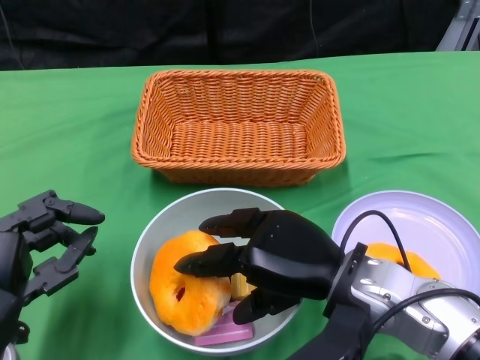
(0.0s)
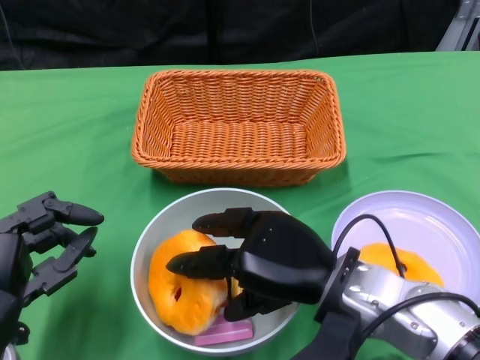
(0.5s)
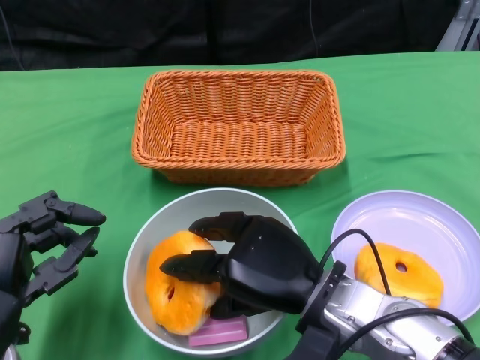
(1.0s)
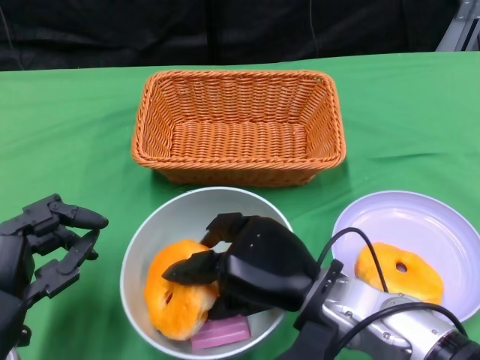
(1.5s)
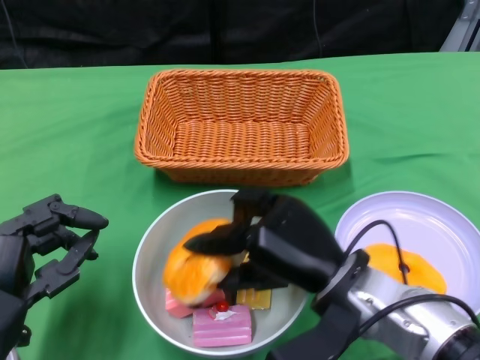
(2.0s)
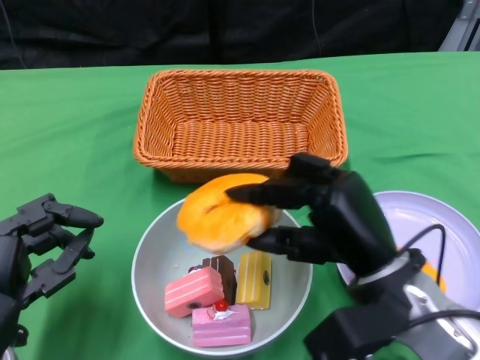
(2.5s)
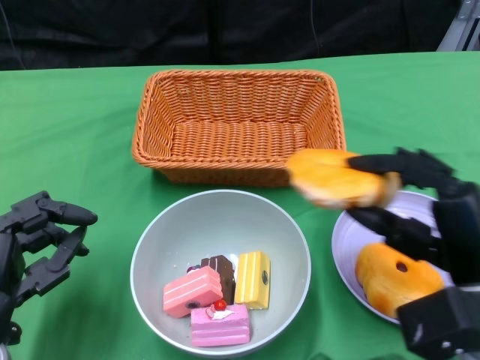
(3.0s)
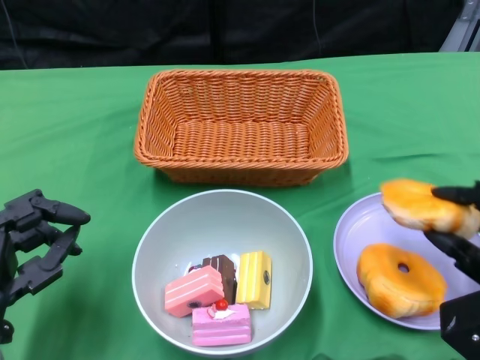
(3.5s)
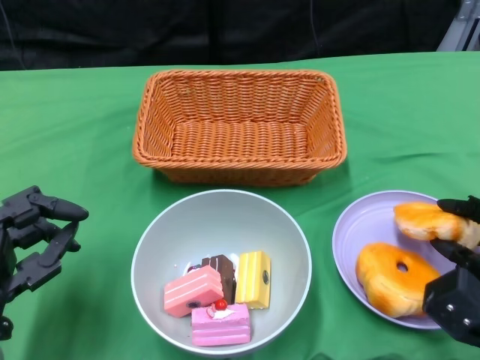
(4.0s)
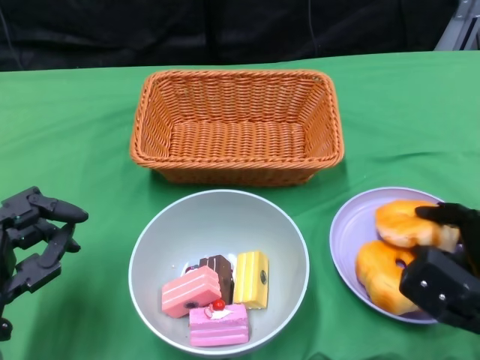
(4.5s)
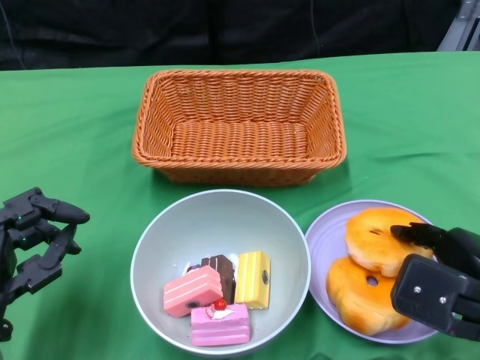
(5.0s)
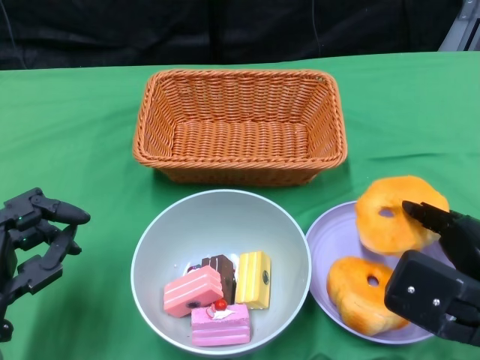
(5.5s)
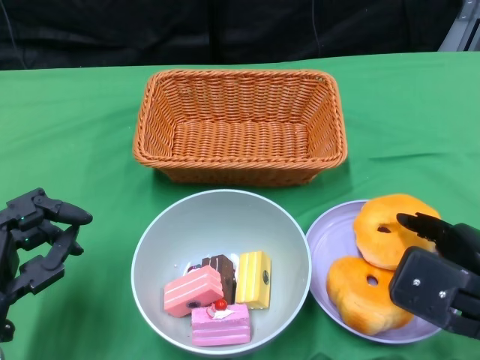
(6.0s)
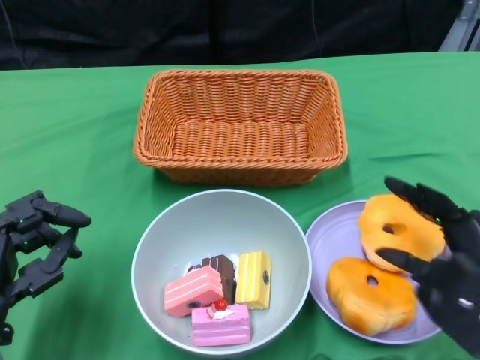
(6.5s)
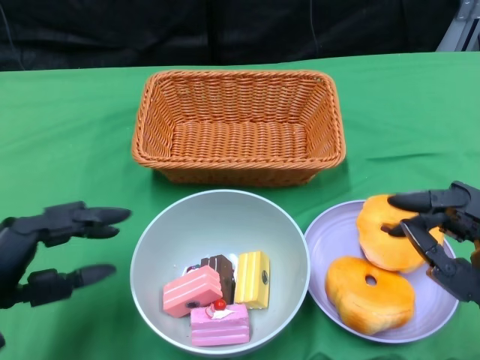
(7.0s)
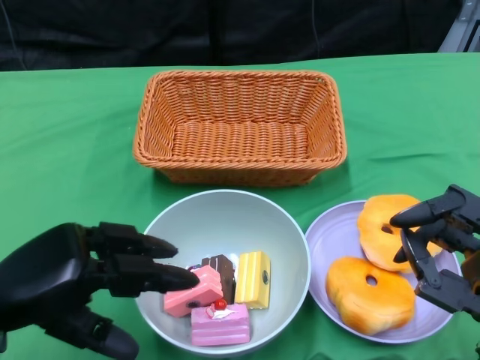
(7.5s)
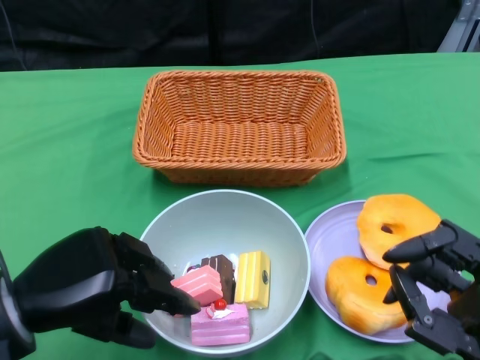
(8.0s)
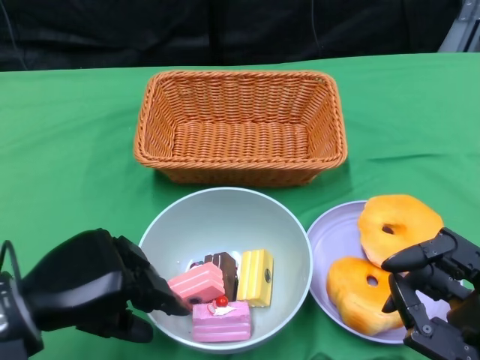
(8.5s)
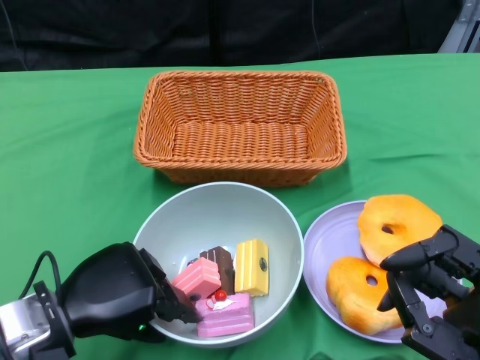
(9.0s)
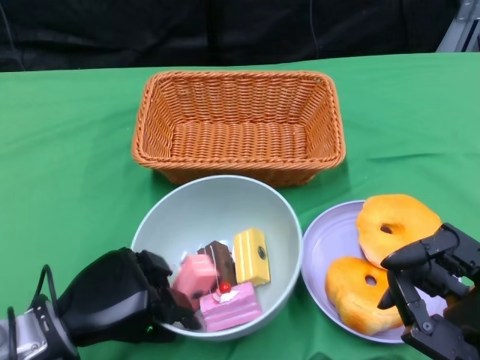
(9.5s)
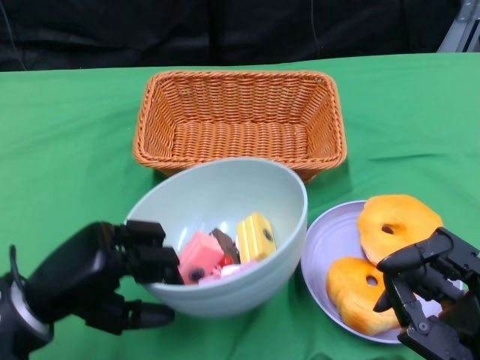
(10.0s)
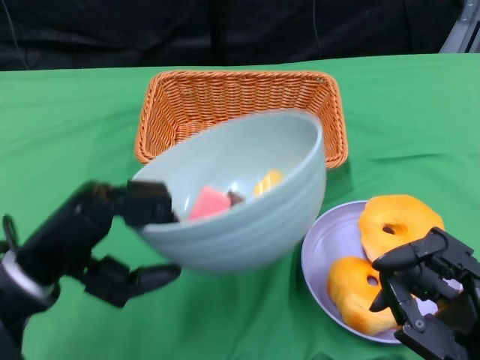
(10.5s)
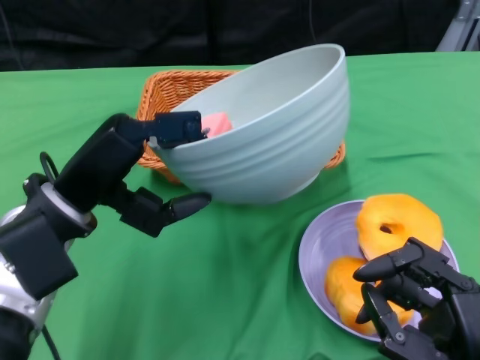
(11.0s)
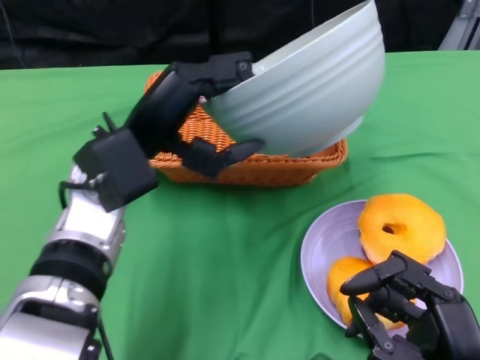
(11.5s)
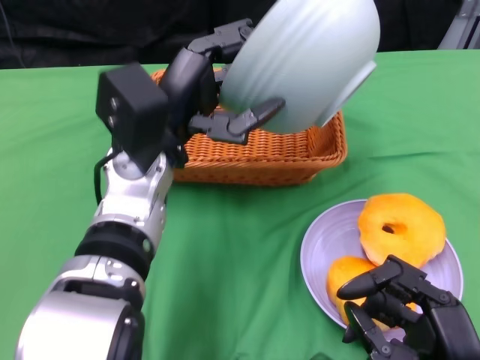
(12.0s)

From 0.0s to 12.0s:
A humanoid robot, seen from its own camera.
Step, from 0.0s to 6.0s: Pick up the bread with the right gripper and place it on the plate.
Step, from 6.5s to 9.5s: Grasp the bowl with the left gripper.
From 2.0s to 4.0s: The right hand heads to the right, covering some 15 cm.
From 4.0s to 6.0s: The right hand heads upward, covering approximately 10 cm.
From 6.0s to 8.0s: The left hand shifts approximately 5 cm upward, while the right hand goes about 5 cm backward.
From 10.0s to 12.0s: The left hand heads to the right, forward and upward, covering roughly 20 cm.

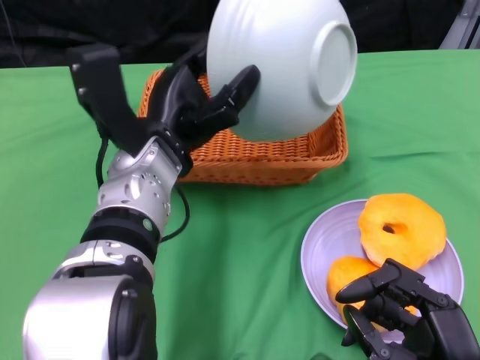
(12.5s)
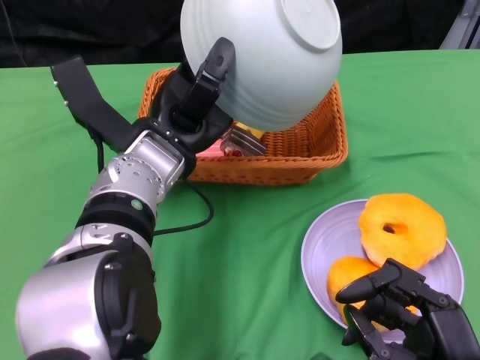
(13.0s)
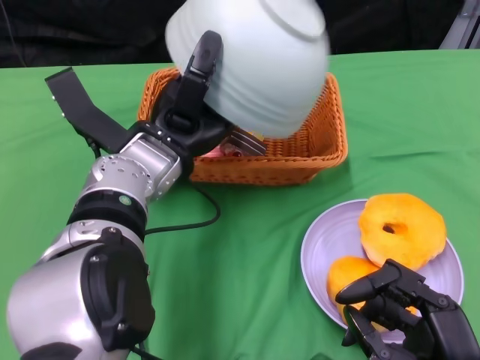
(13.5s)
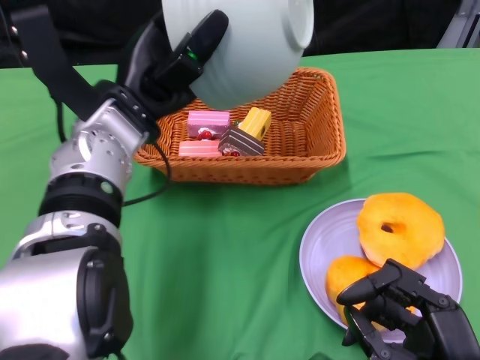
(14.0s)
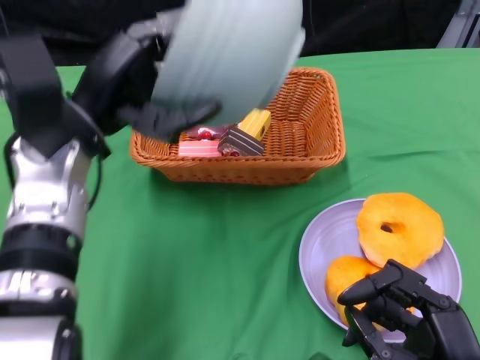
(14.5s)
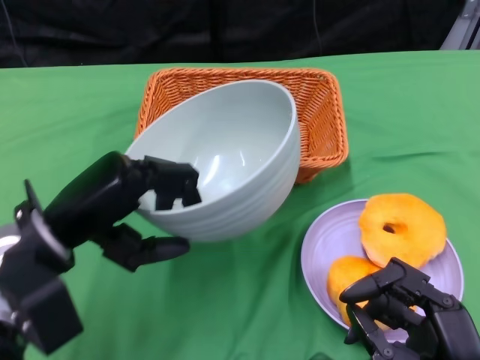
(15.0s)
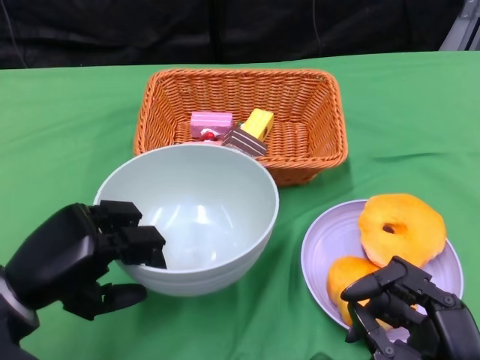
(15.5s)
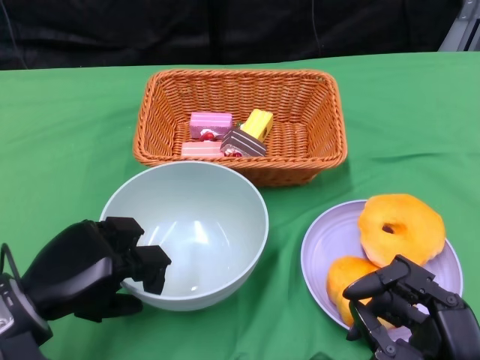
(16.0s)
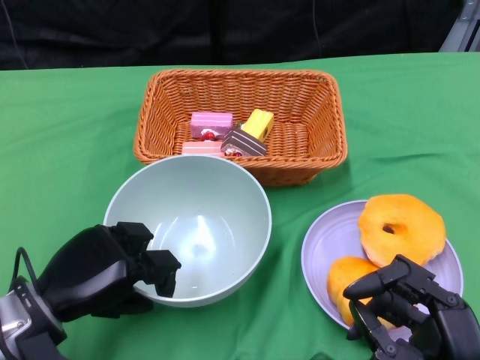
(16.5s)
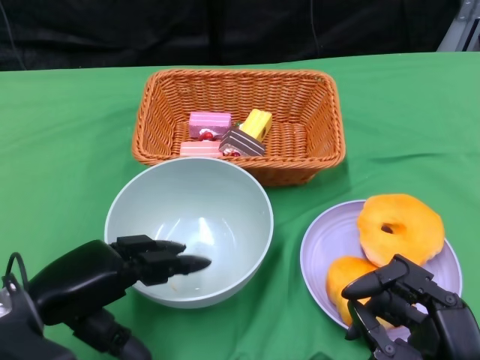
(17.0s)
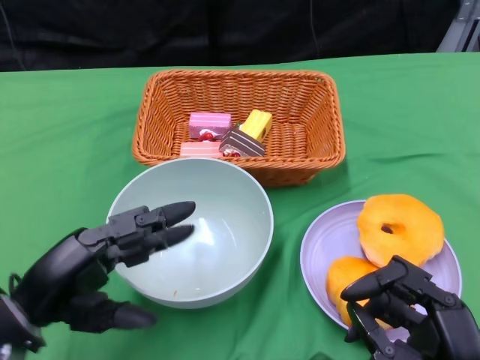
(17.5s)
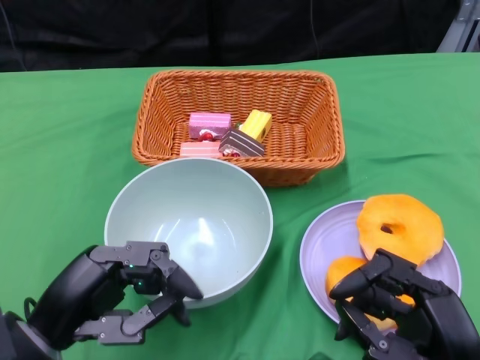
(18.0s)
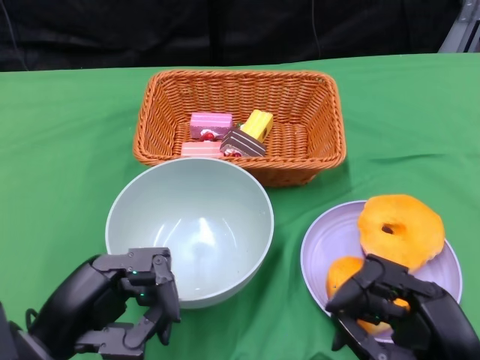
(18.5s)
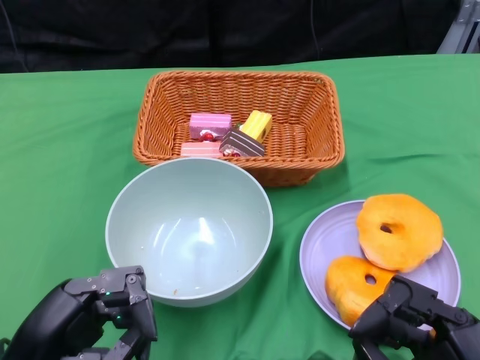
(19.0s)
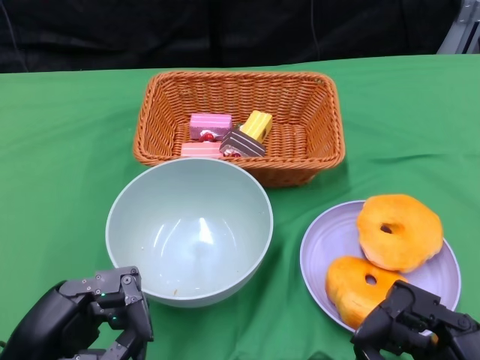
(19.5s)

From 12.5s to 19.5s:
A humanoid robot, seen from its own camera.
Step, from 14.5s to 16.5s: Place the bowl on the table with the left gripper.
From 12.5s to 14.5s: The left hand is displaced to the left by approximately 10 cm.
From 14.5s to 16.0s: The left hand moves downward, backward and to the left, roughly 15 cm.
From 17.5s to 19.5s: The left hand shifts approximately 5 cm backward.

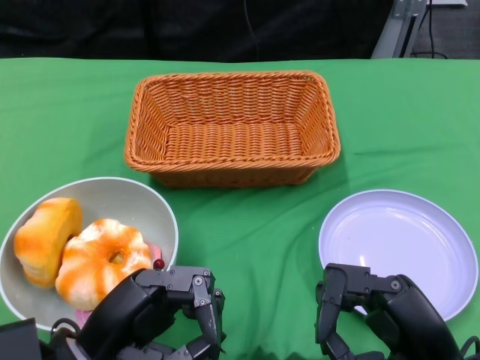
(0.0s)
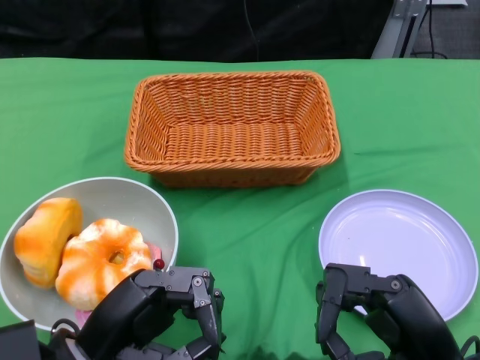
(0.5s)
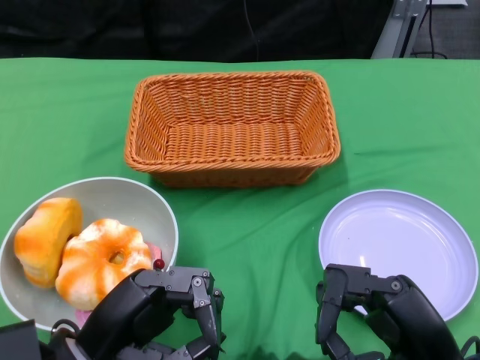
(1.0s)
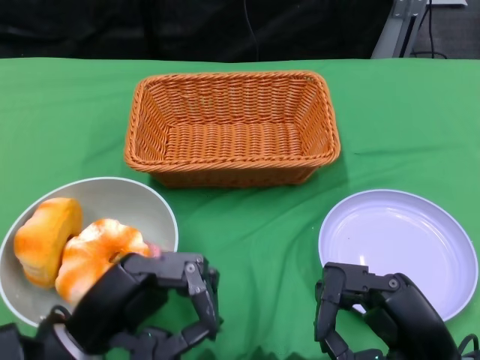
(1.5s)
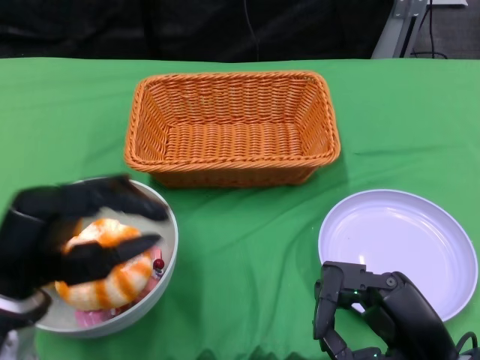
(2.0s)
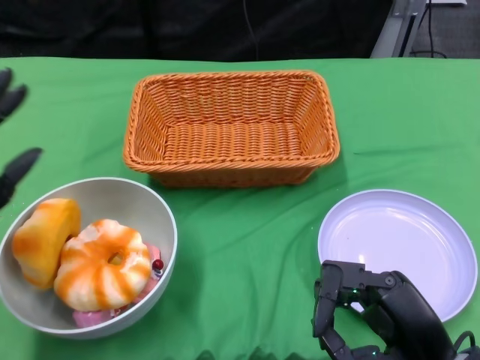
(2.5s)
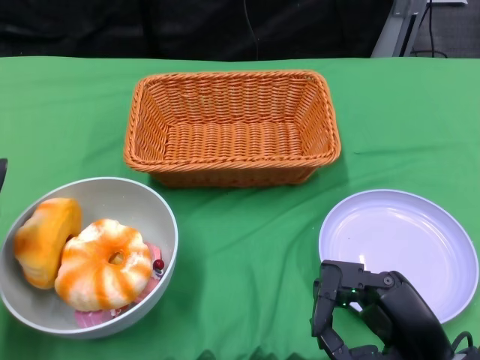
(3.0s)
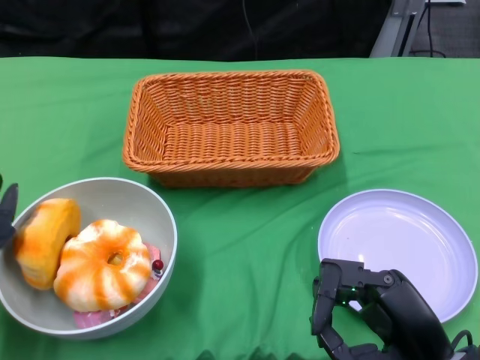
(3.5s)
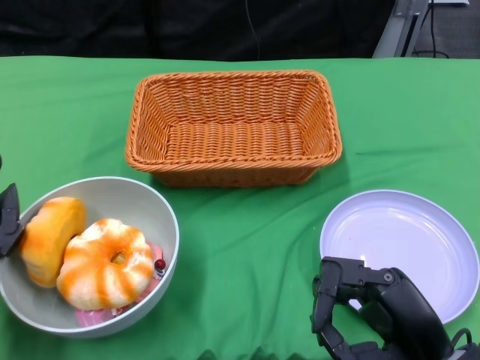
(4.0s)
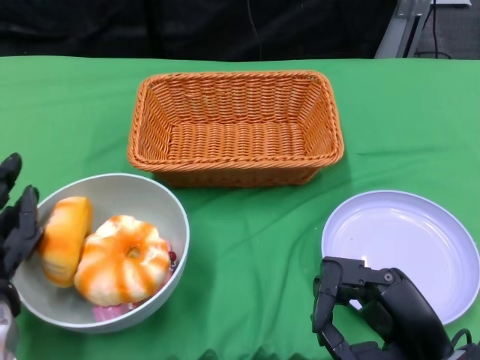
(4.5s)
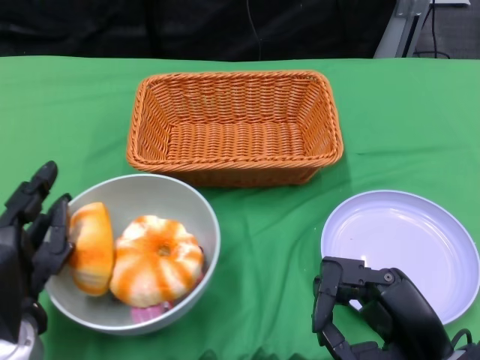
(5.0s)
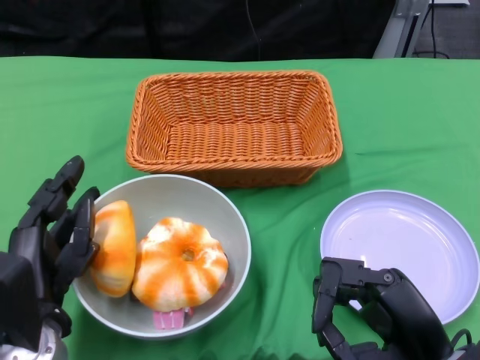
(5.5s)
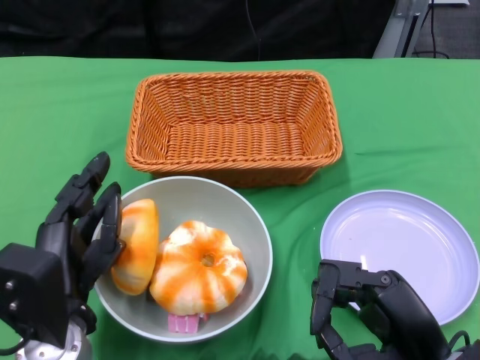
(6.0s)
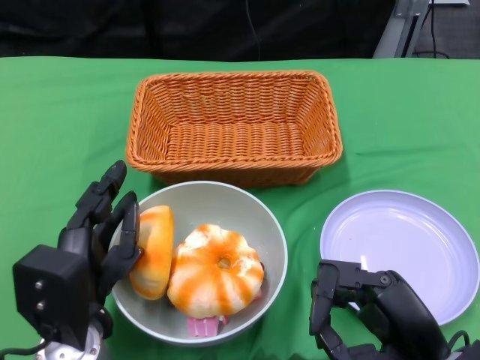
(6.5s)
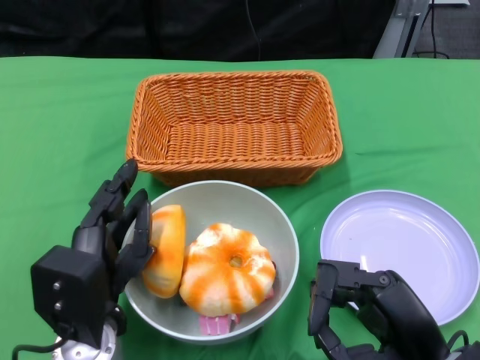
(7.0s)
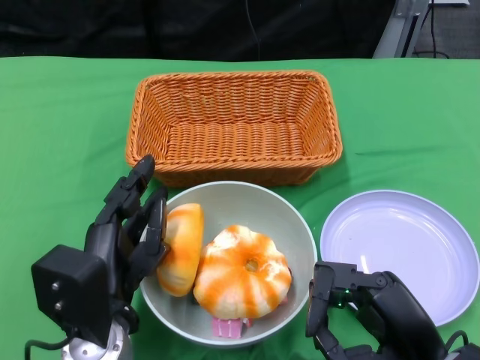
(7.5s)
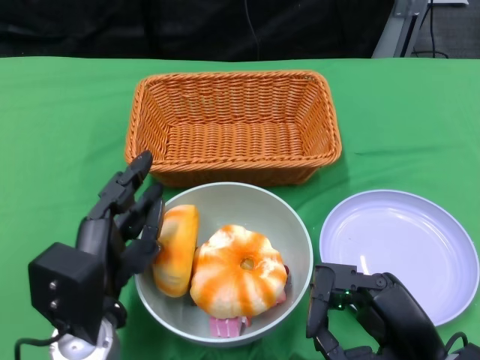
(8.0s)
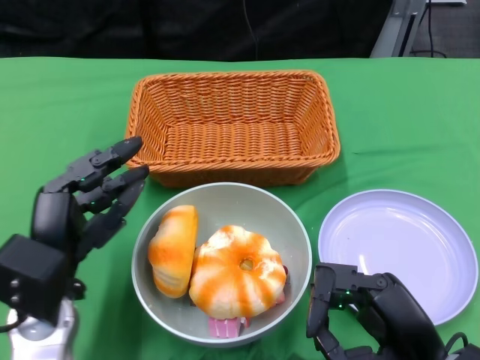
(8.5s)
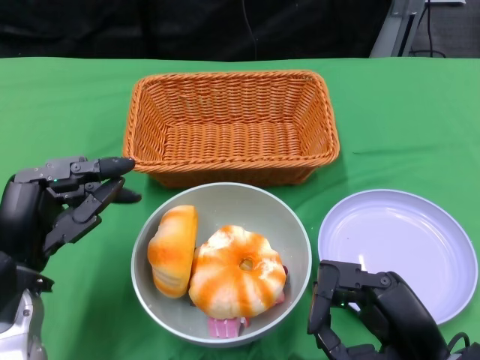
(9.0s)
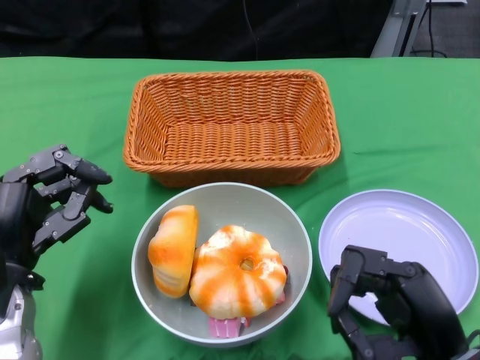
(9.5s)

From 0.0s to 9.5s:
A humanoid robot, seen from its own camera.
Step, from 0.0s to 8.0s: Push the bowl to the center of the table using the left gripper.
From 2.0s to 4.0s: The left hand travels downward by roughly 5 cm.
From 4.0s to 5.5s: The left hand heads to the right, covering approximately 5 cm.
From 5.5s to 7.5s: The left hand moves to the right, about 5 cm.
From 7.5s to 9.5s: The left hand goes roughly 10 cm to the left.
